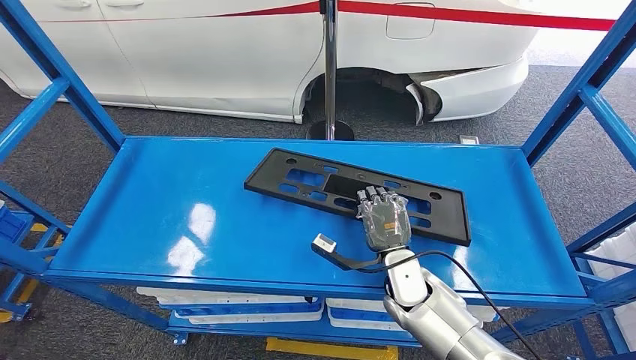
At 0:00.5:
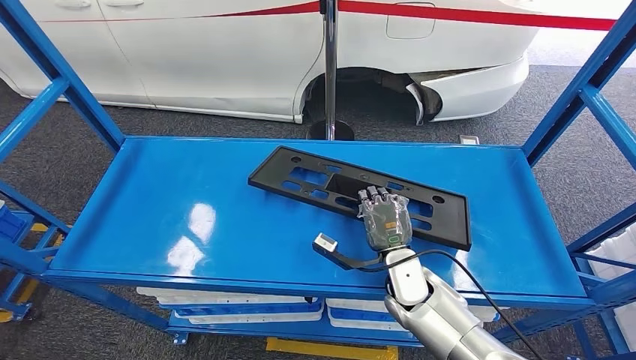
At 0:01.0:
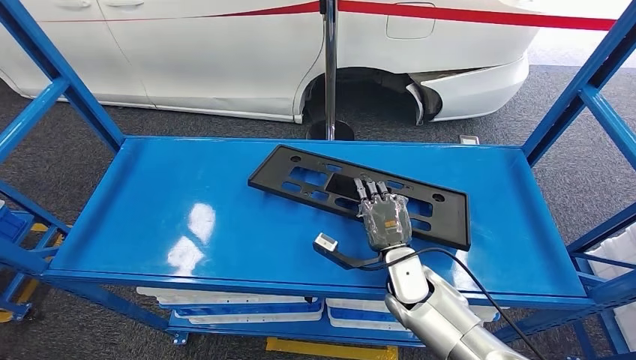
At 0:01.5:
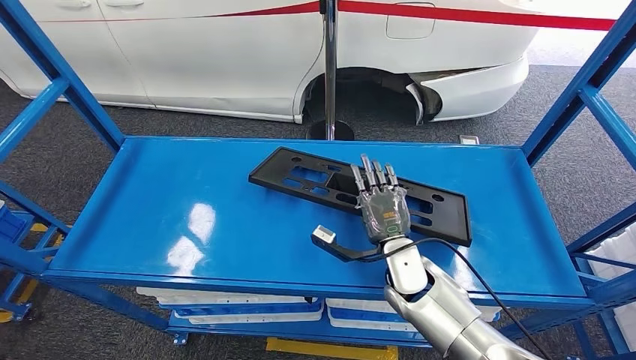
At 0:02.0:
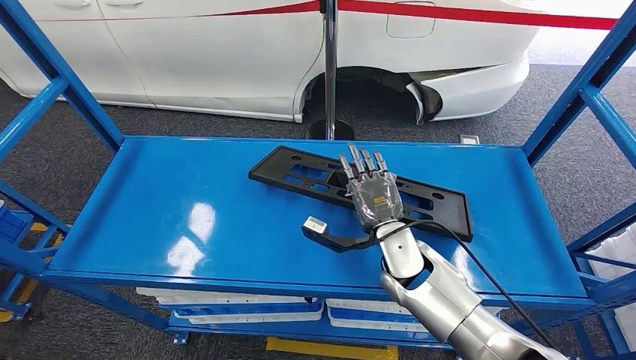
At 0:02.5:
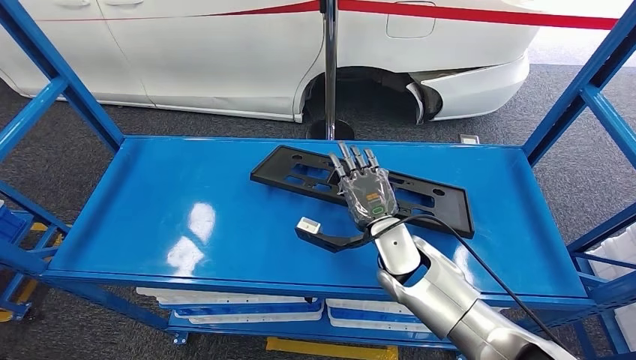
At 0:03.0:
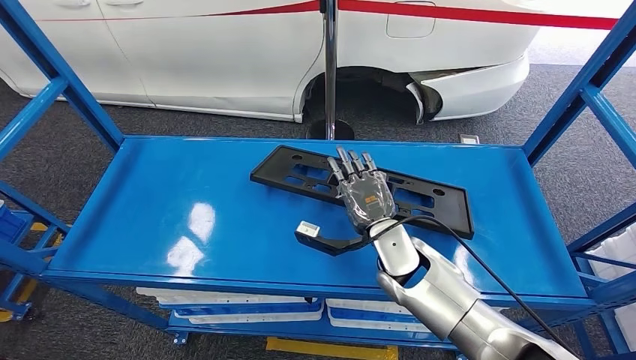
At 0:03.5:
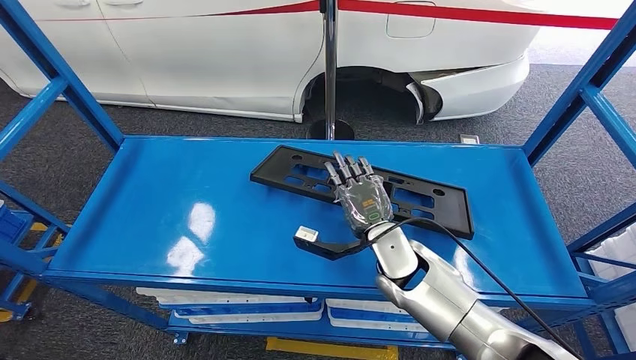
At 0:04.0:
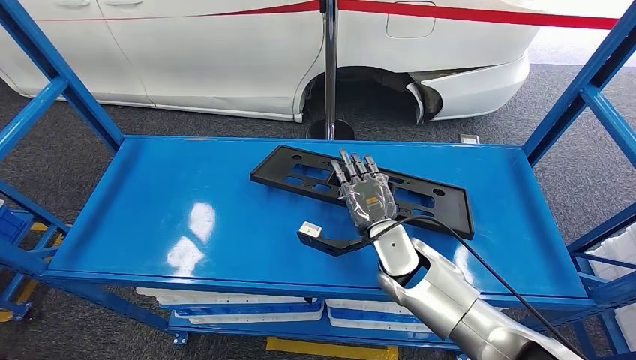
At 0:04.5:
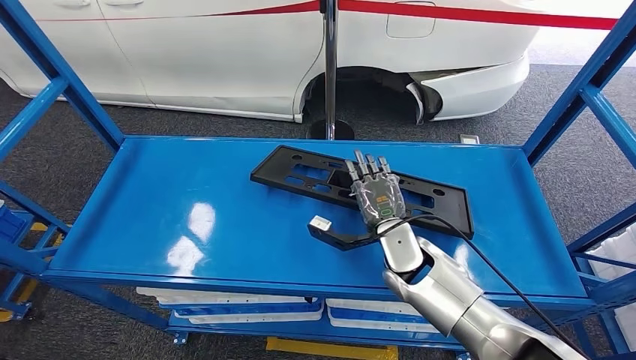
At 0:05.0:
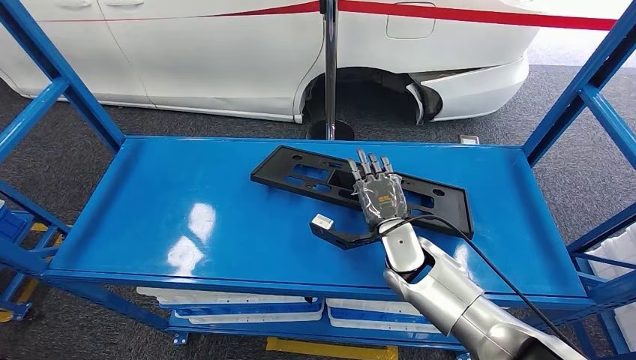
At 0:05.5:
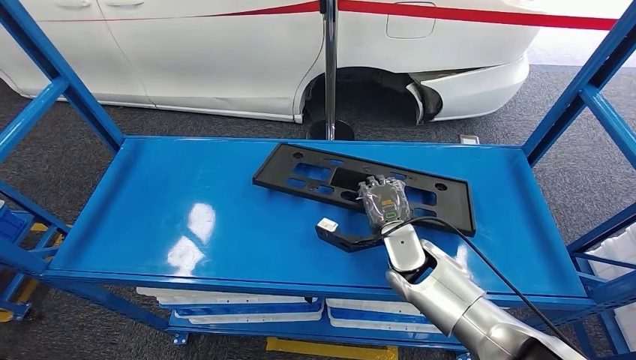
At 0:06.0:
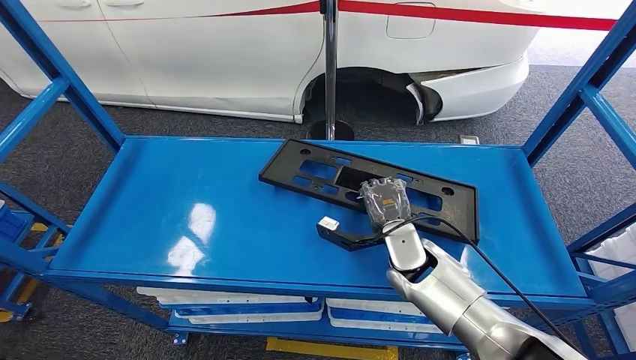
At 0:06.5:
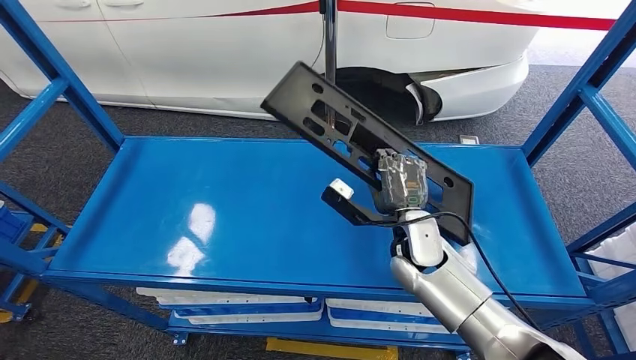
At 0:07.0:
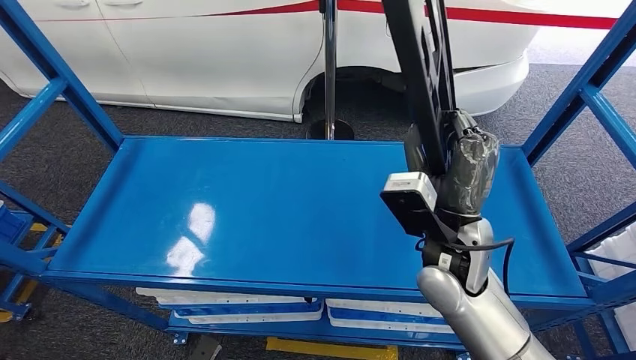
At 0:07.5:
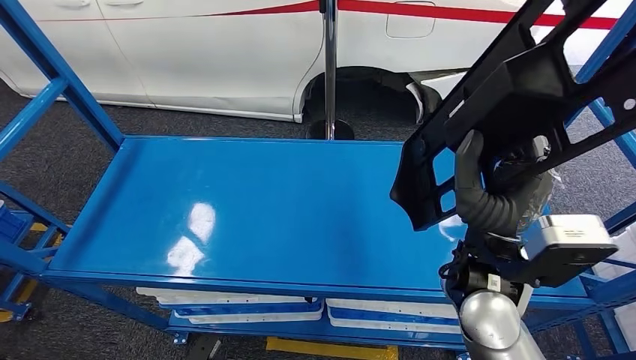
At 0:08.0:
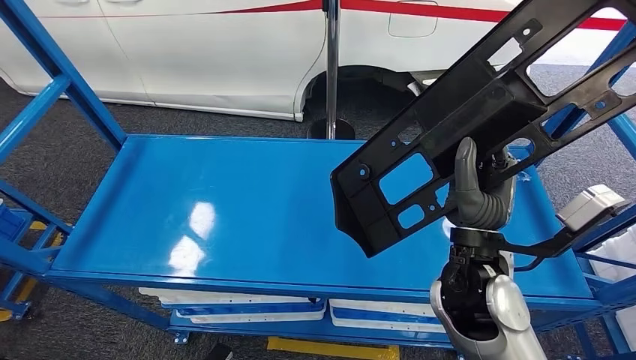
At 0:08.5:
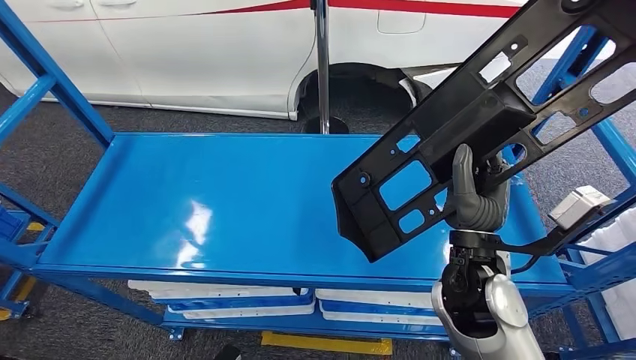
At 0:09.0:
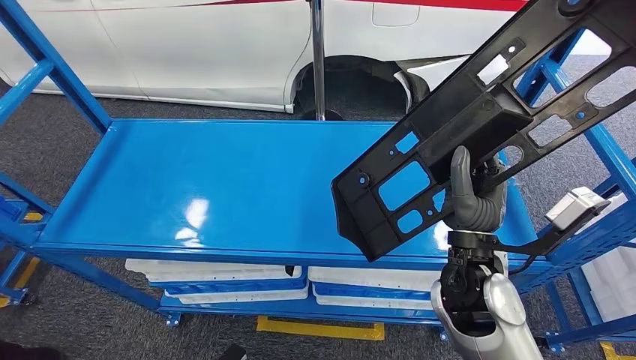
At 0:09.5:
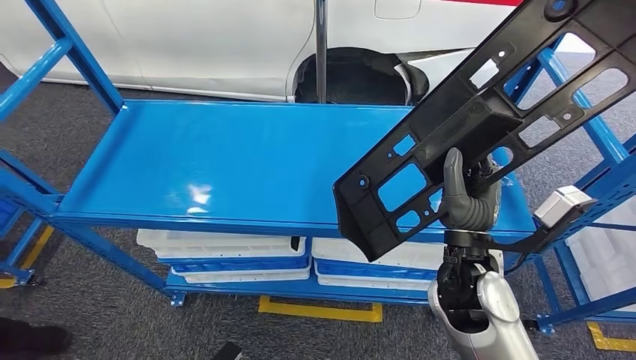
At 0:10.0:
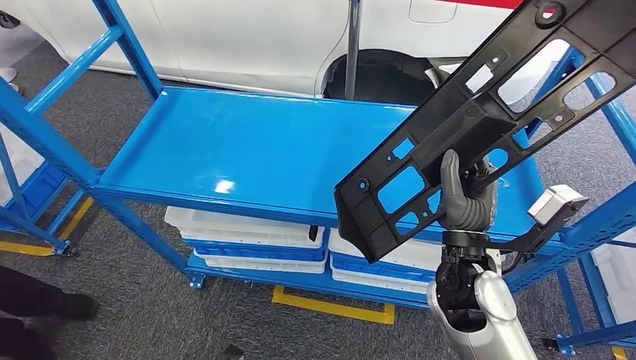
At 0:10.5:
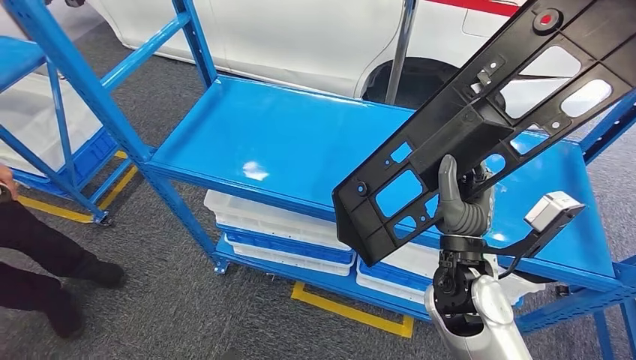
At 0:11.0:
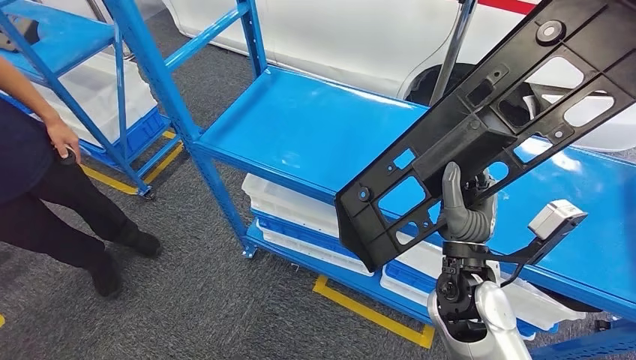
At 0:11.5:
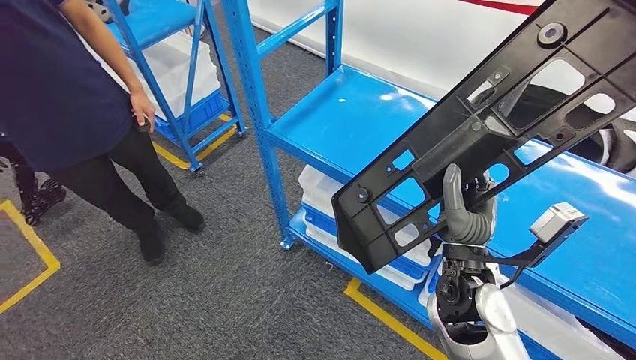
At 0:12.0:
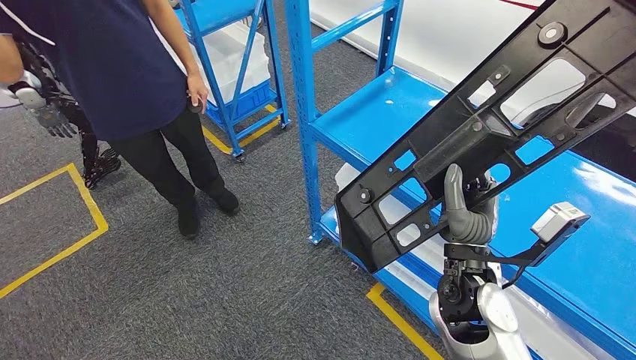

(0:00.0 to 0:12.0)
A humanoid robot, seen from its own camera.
Step, 0:00.0 - 0:06.5: Pick up the large material from the shelf.
0:00.0 - 0:02.0: The right hand moves approximately 5 cm.
0:02.0 - 0:06.0: There are only small adjustments of the hands.

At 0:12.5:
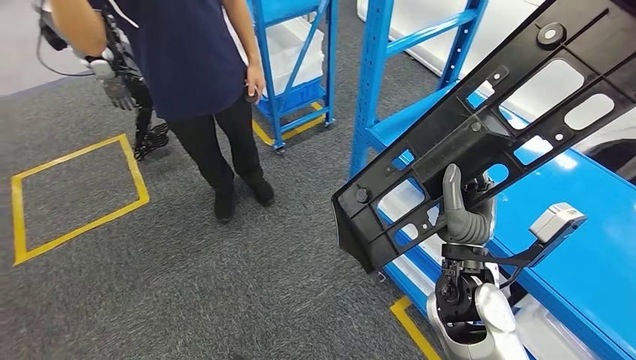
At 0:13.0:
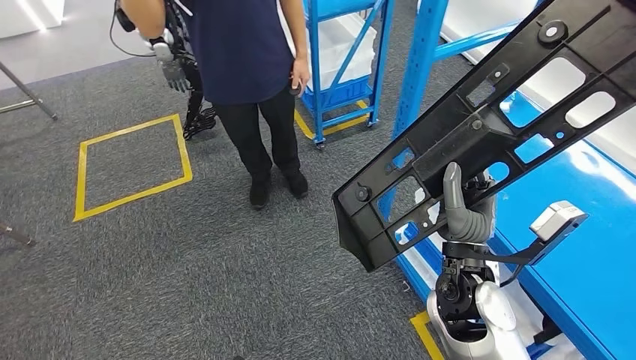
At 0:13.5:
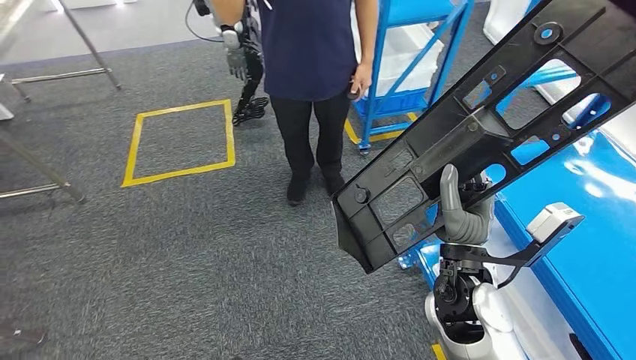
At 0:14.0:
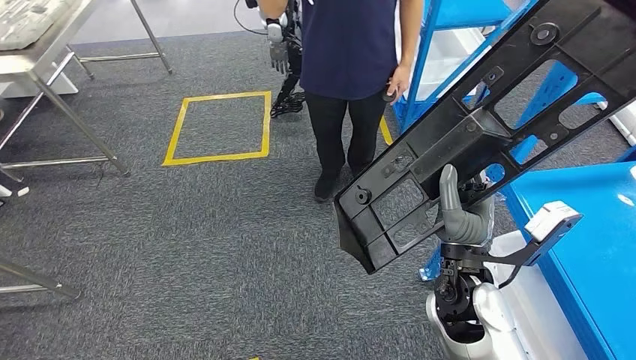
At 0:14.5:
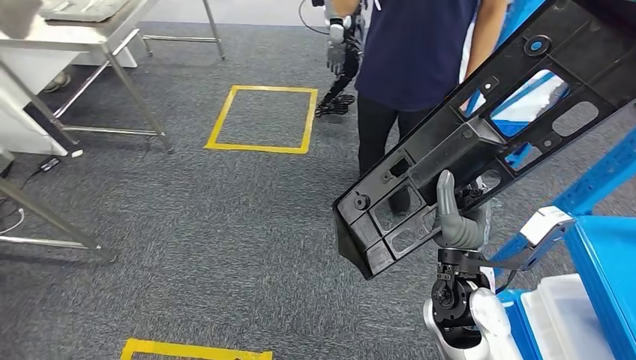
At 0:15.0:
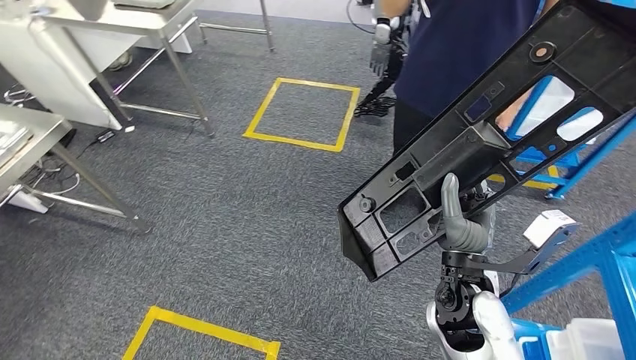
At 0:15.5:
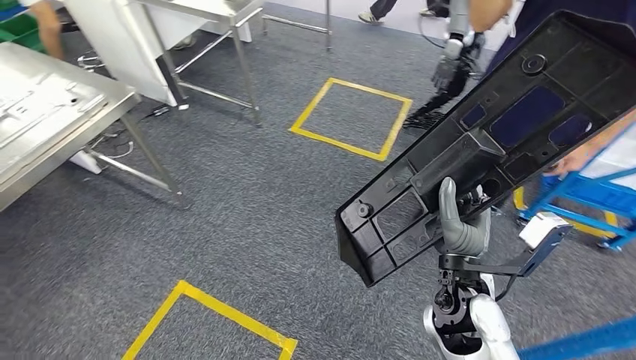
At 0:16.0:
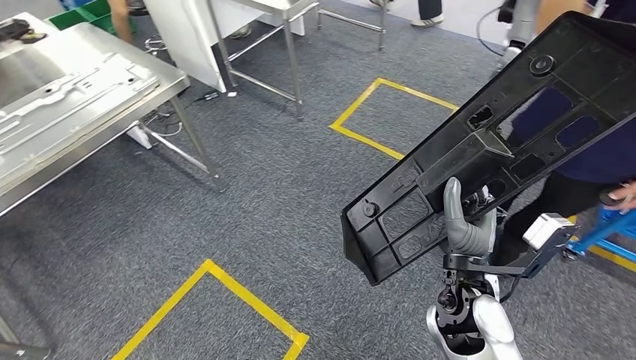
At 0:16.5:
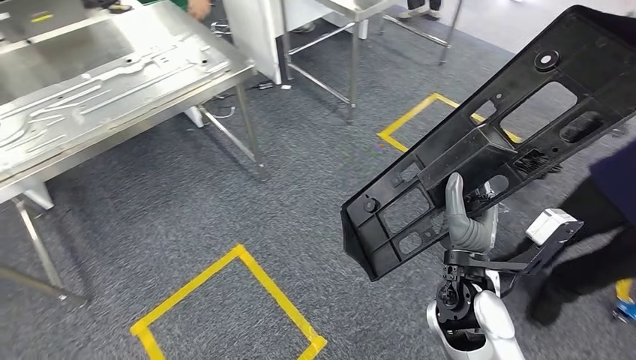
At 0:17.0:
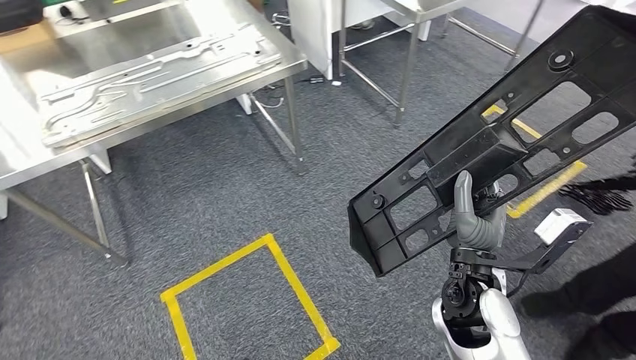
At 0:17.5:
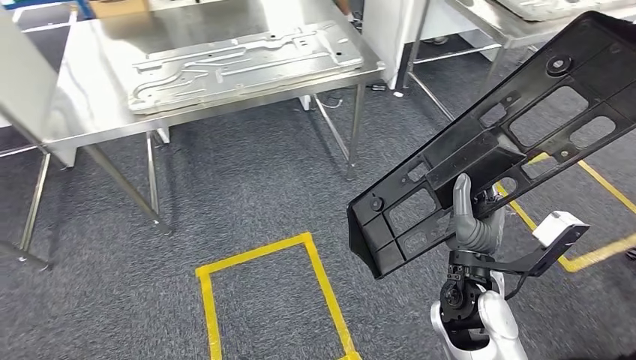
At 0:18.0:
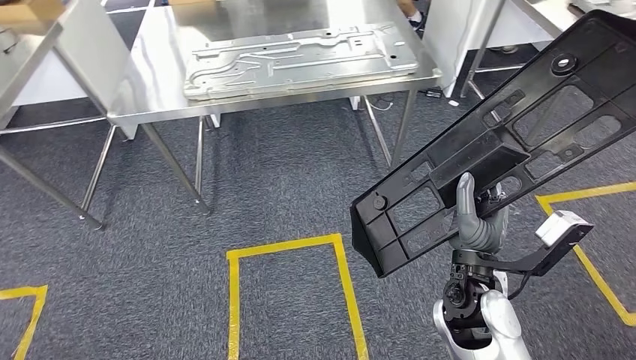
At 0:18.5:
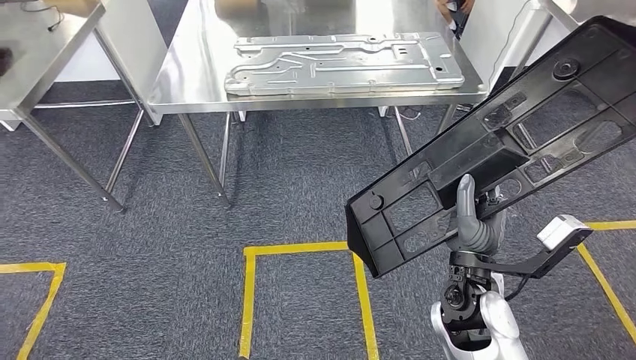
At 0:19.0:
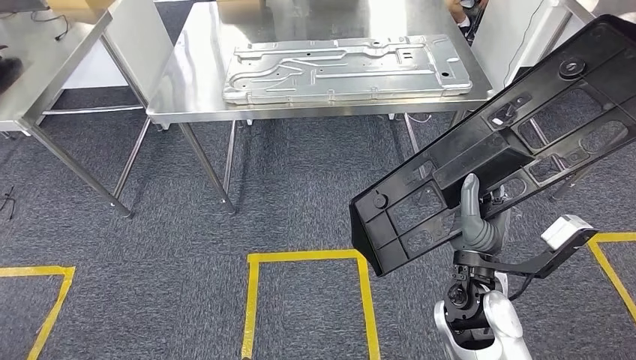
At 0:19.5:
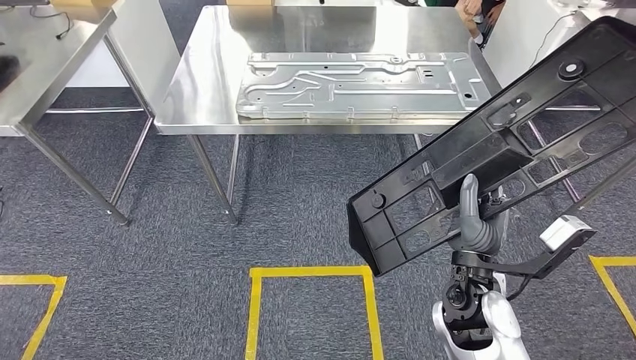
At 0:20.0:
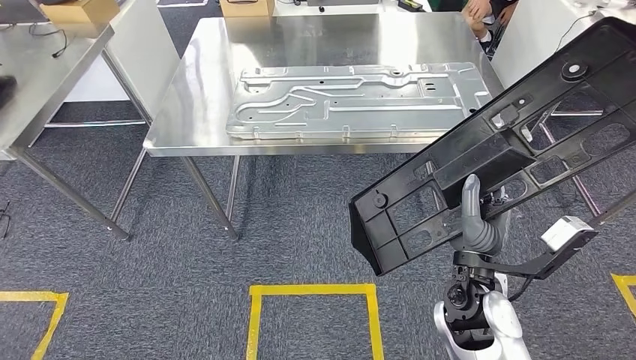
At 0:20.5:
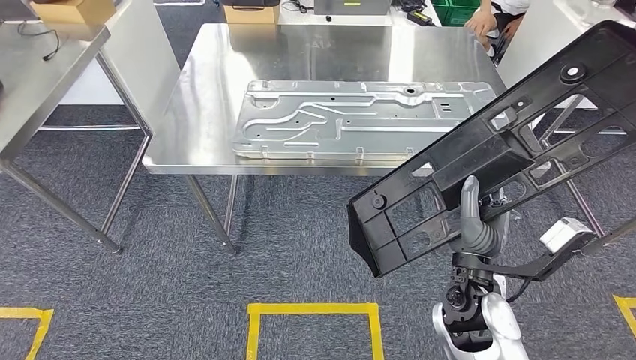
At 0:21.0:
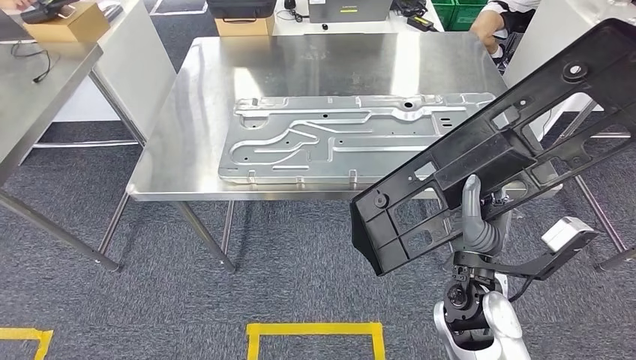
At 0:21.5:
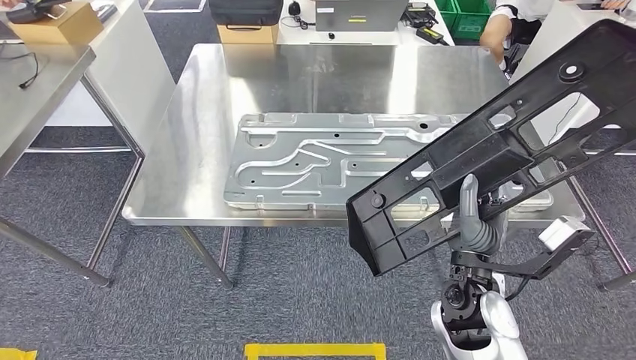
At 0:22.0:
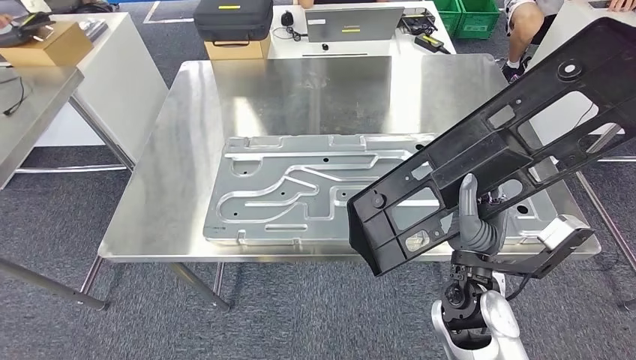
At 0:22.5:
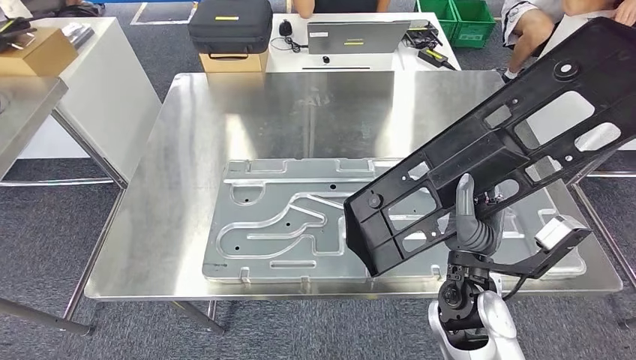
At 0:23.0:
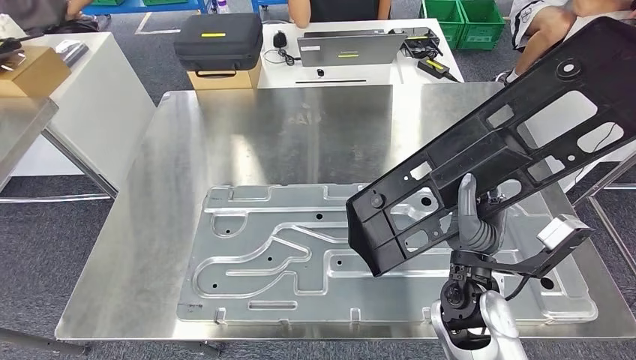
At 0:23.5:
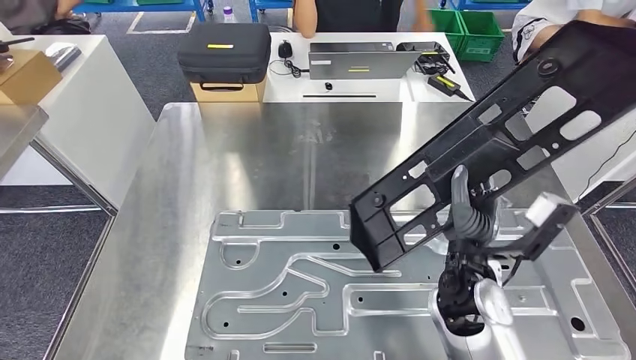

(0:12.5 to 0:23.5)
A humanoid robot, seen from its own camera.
Step, 0:12.5 - 0:21.0: Move the large material to the front of the workbench.
